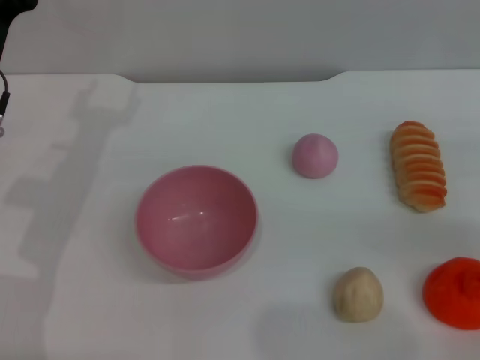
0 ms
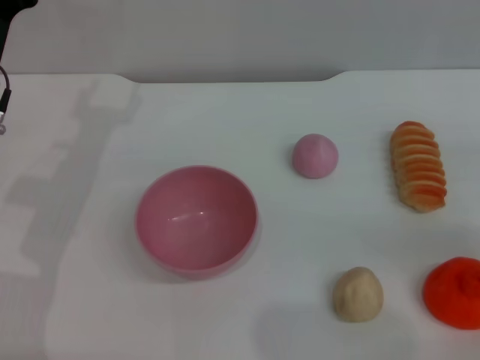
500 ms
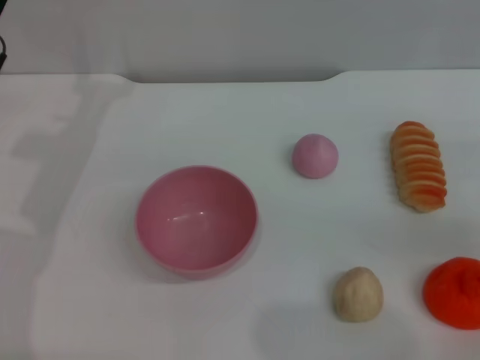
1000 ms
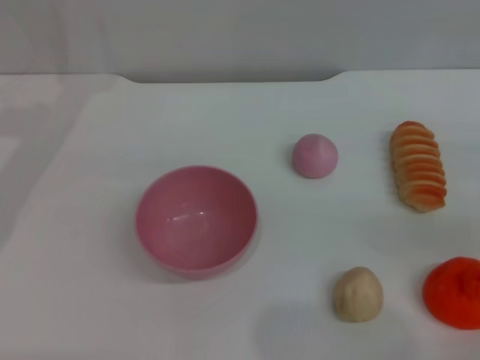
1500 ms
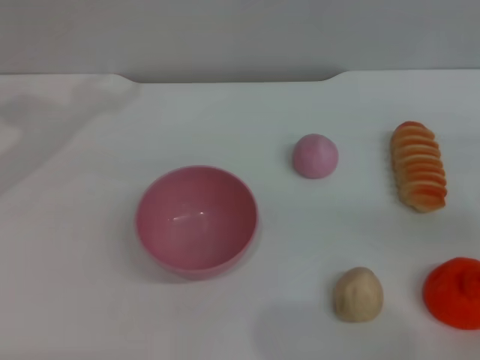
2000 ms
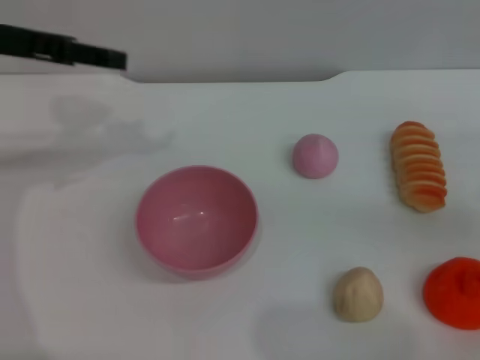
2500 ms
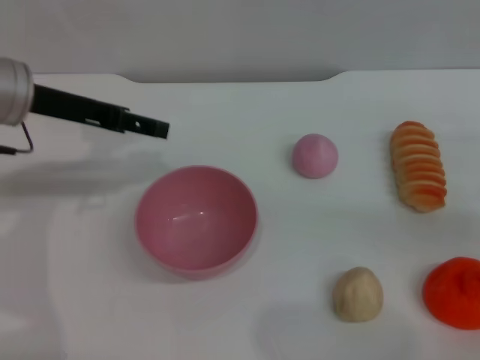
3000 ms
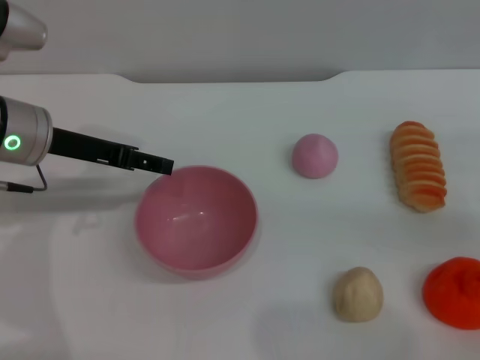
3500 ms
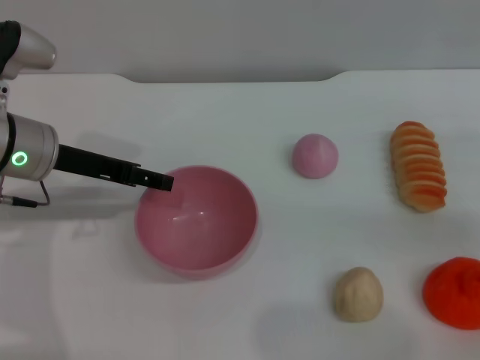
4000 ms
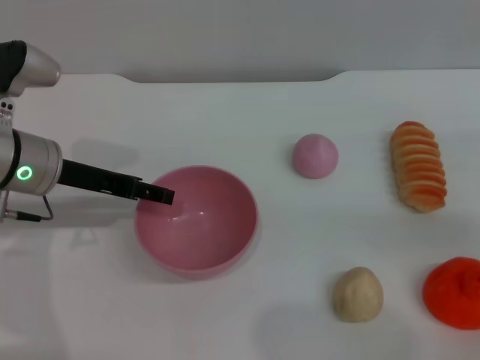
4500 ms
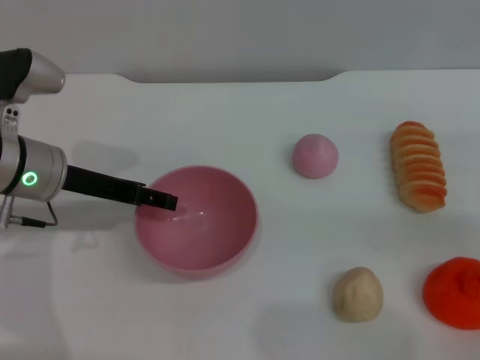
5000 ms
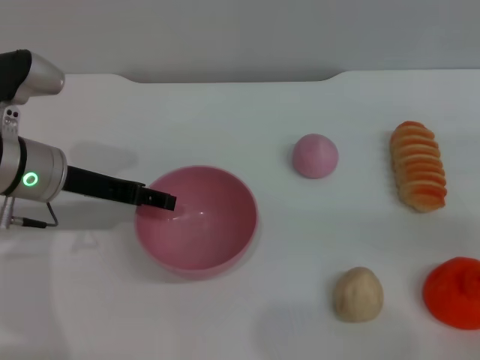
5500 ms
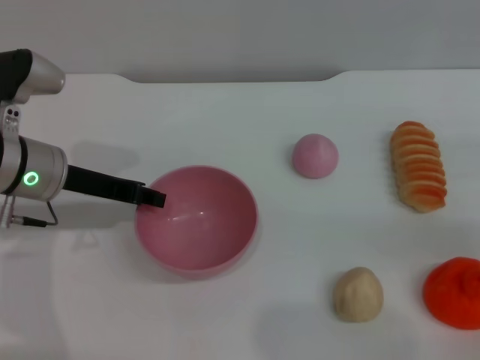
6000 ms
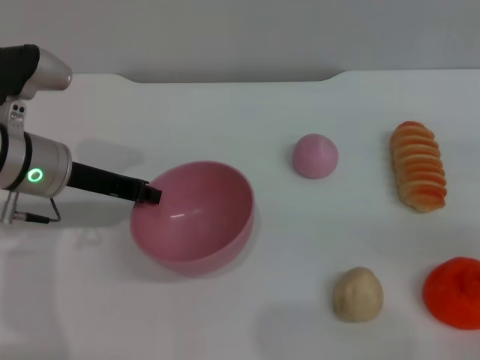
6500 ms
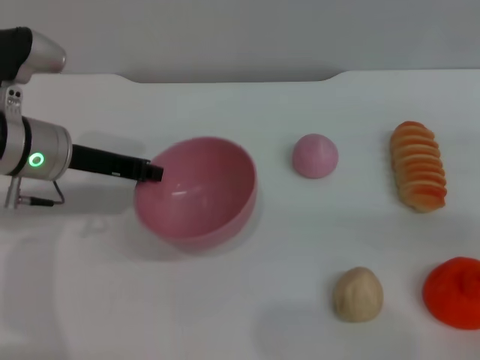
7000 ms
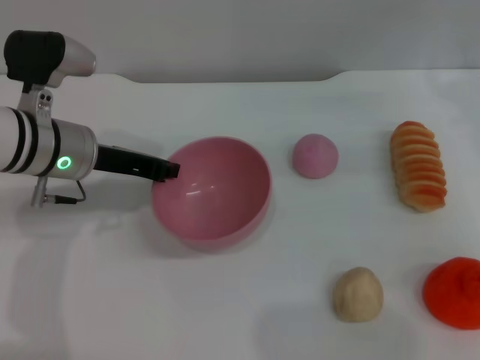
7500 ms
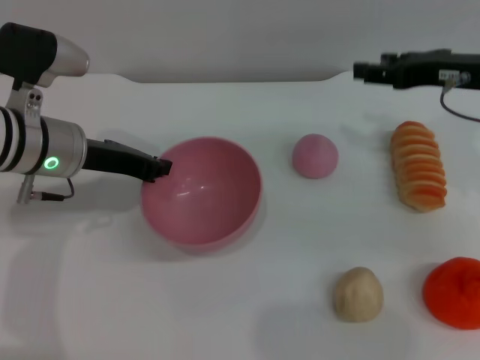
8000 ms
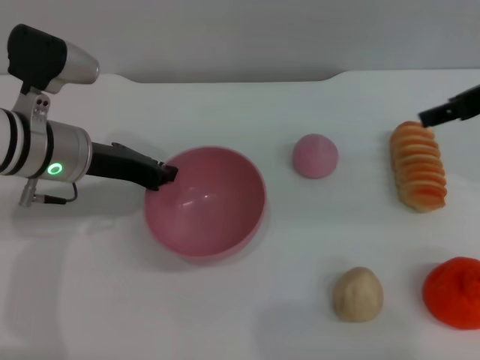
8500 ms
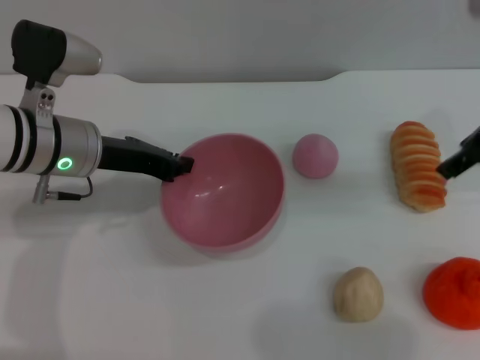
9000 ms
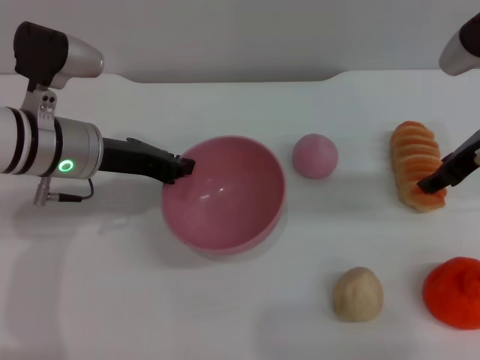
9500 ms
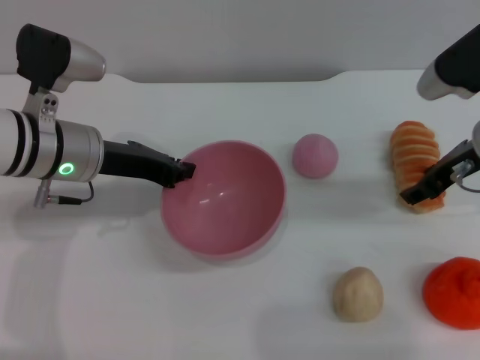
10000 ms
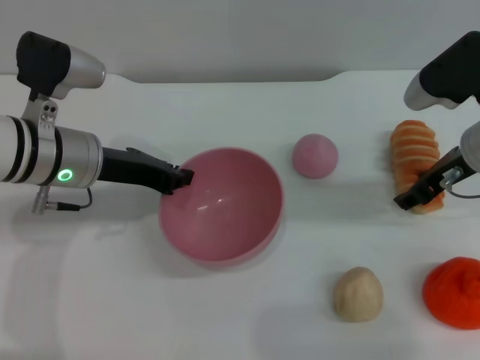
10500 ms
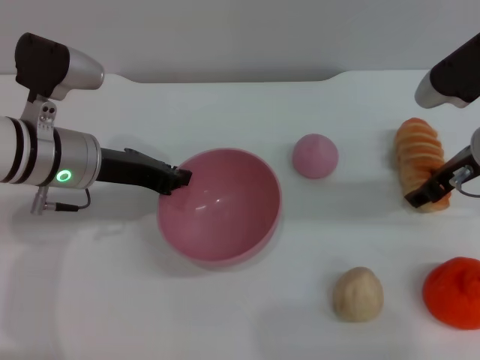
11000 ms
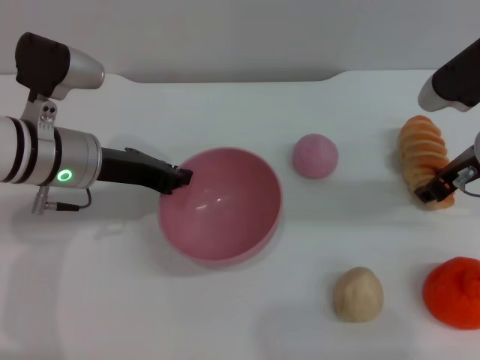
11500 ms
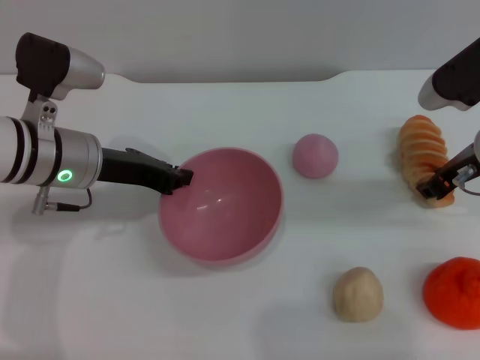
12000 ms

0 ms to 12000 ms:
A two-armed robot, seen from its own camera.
Task of the whole recording: put the bread into the pink bowl and pour it out repeatedly.
Step, 0 ms to 7000 ms: Pick up the bowl with the left gripper.
0 ms to 2000 ms: The left gripper is displaced upward and to the left by approximately 15 cm.
2000 ms to 4000 ms: The left gripper heads downward and to the right, covering approximately 15 cm.
4000 ms to 6000 ms: The grippers move only a little.
6000 ms to 8000 ms: The left gripper closes, while the right gripper moves to the left, forward and upward, approximately 15 cm.
10000 ms to 12000 ms: The right gripper closes its fingers.

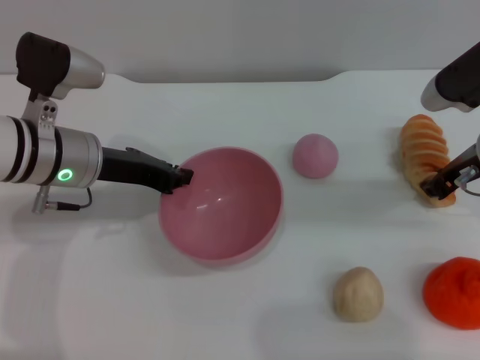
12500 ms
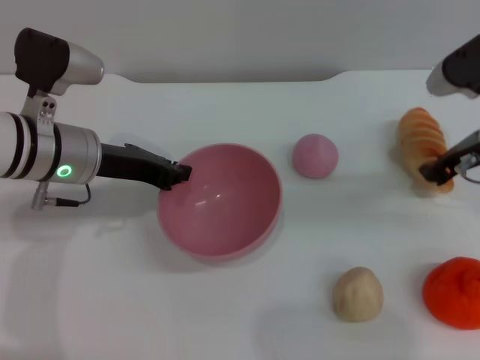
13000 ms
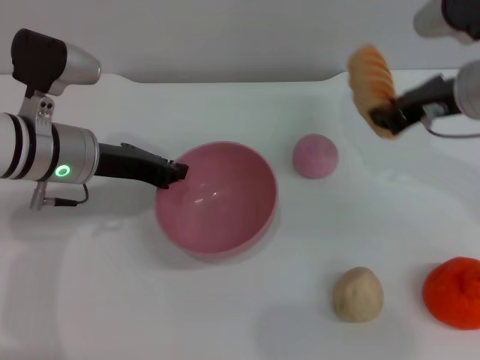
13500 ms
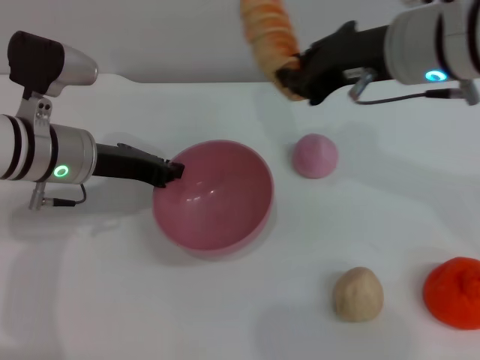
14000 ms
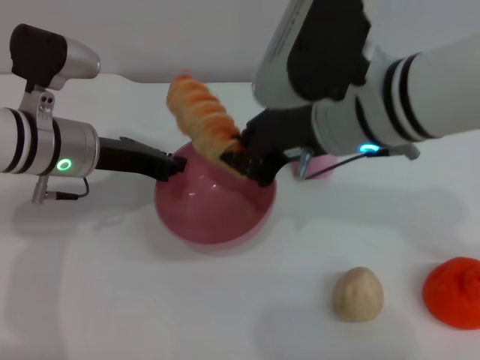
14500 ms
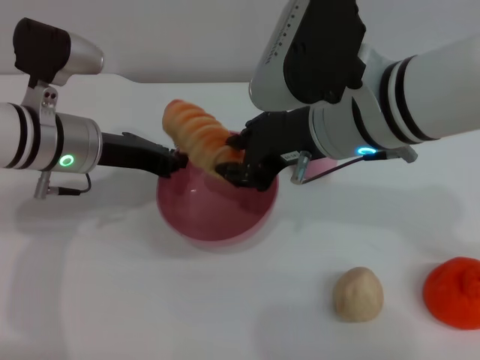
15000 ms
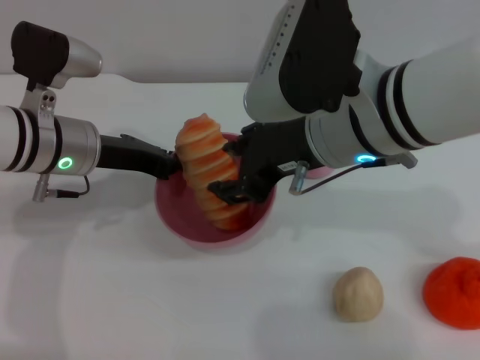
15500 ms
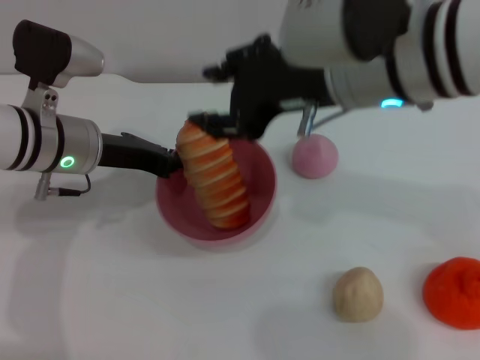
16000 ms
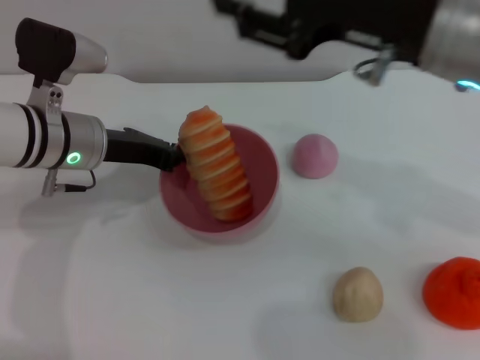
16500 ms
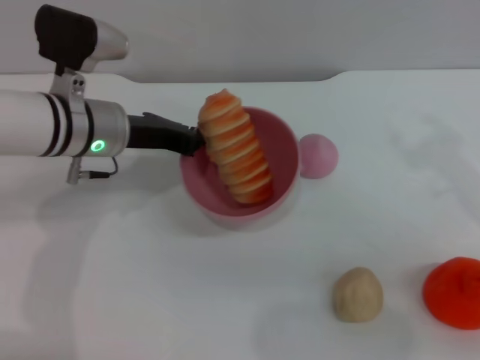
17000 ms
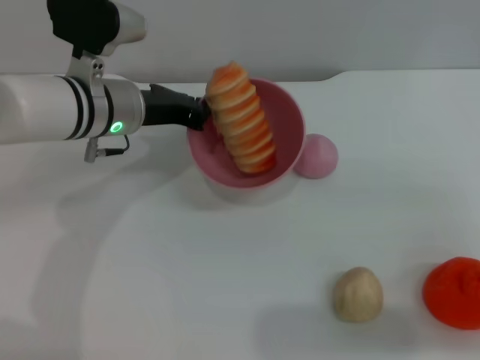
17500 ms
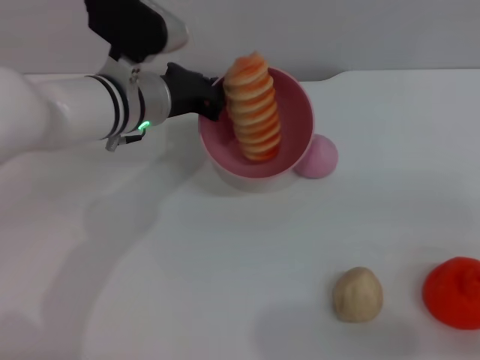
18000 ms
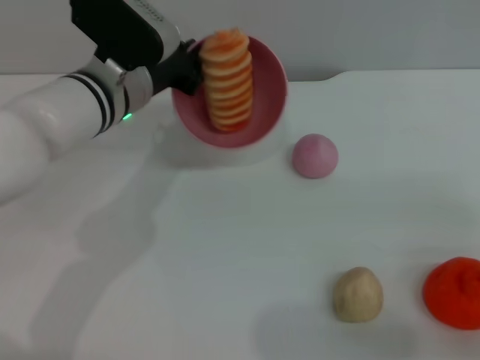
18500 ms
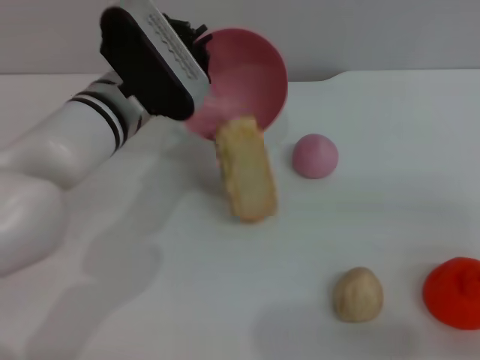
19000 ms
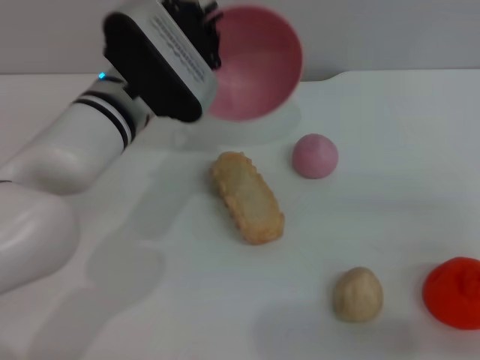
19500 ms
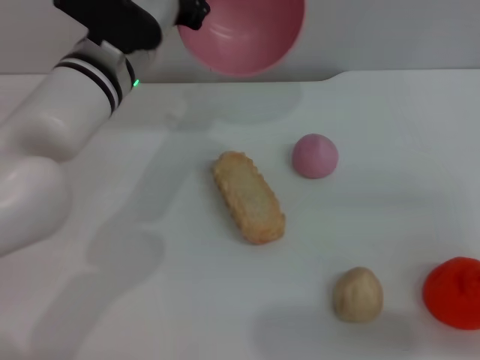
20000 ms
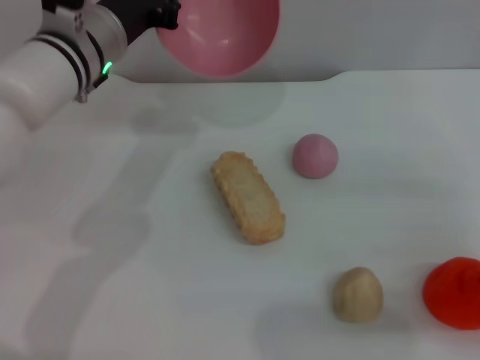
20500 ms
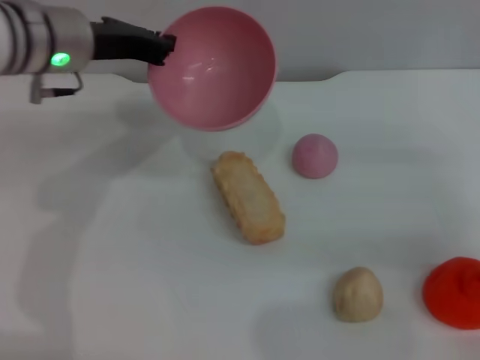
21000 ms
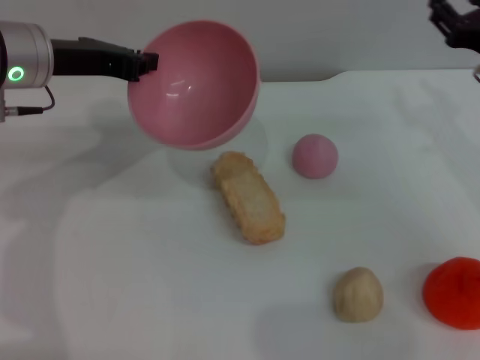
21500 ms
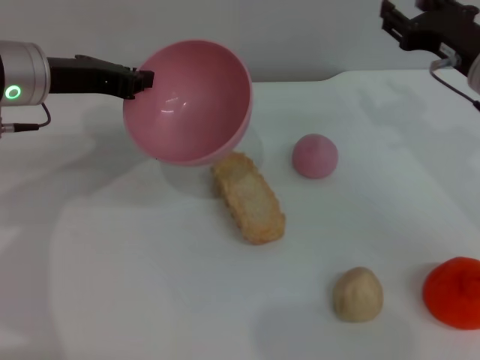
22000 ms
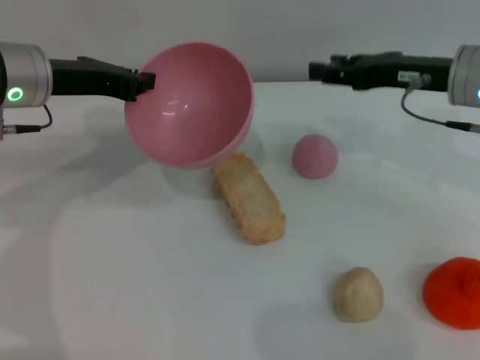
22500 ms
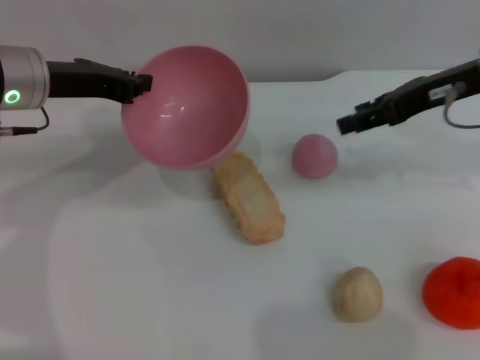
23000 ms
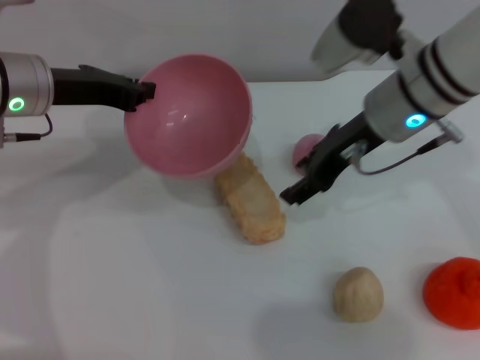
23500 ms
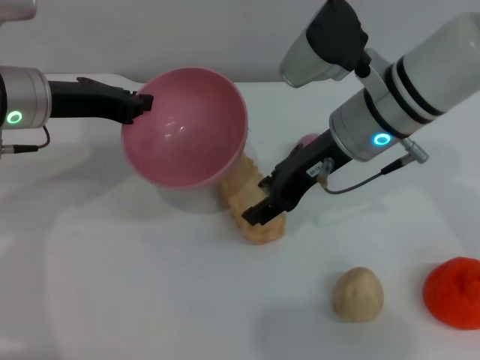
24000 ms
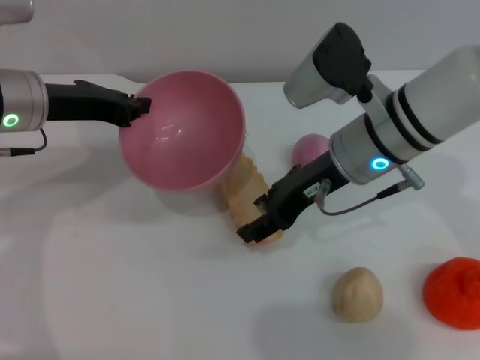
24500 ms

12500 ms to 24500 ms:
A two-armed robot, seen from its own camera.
Task of the whole recording: put the bread into the pink bowl and pour it out repeatedly.
Step, 13500 ms to 16000 ms: Place the bread into the bowl.
Step, 17000 ms to 19500 ms: Pour the bread out of the bowl.
12500 ms to 14500 ms: The right gripper heads to the left and upward, covering roughly 20 cm.
14500 ms to 16500 ms: The right gripper moves to the right, some 10 cm, and opens its fingers.
16500 ms to 18500 ms: The left gripper shifts approximately 5 cm to the right, while the right gripper is displaced to the right, downward and backward by roughly 25 cm.
18500 ms to 20500 ms: The right gripper changes place by about 5 cm.
20500 ms to 22500 ms: The left gripper travels to the left by approximately 10 cm; the right gripper is displaced forward and to the left by approximately 15 cm.
22500 ms to 24500 ms: The right gripper travels to the left by roughly 10 cm.

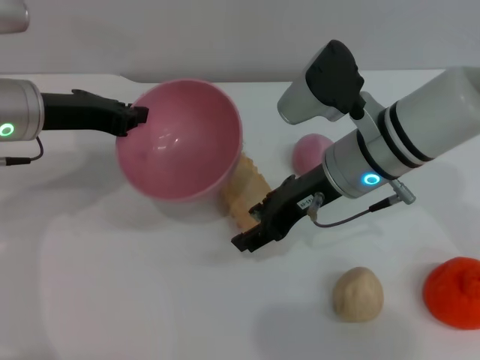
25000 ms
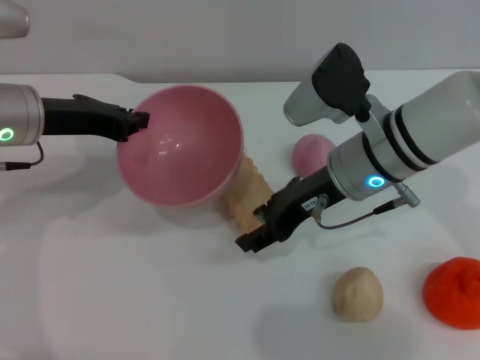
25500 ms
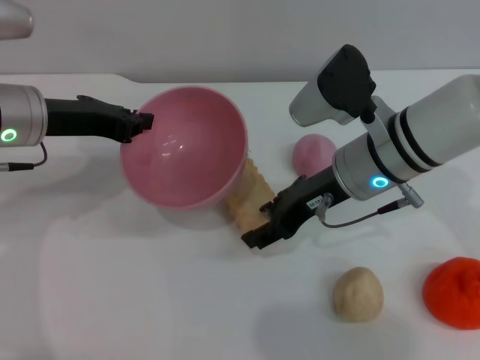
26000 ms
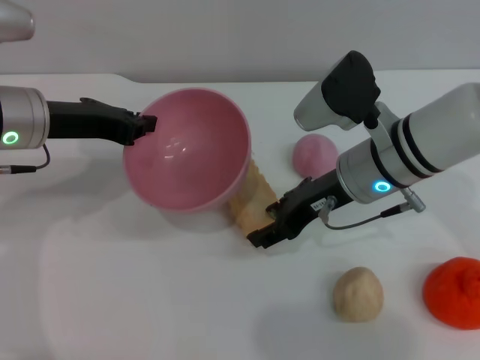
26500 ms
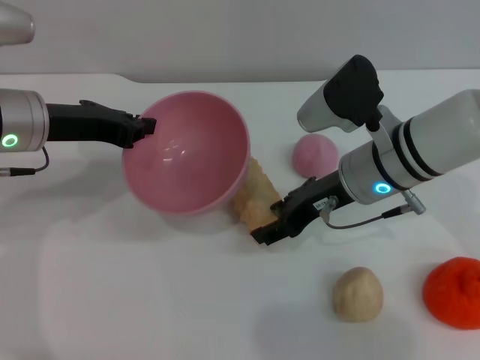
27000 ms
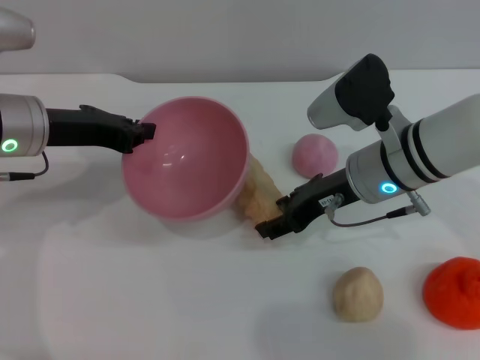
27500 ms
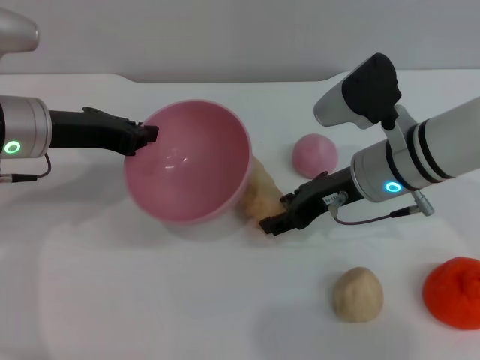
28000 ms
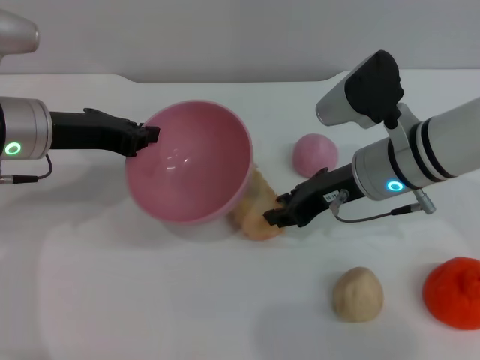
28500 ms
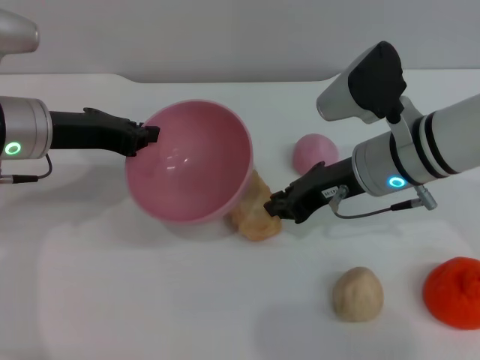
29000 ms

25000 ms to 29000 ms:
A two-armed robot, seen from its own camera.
Task of the whole recording: put the bread into the pink bowl and pour it out repeatedly.
25000 ms to 27000 ms: The grippers make only small movements.
27000 ms to 29000 ms: The right gripper closes.
